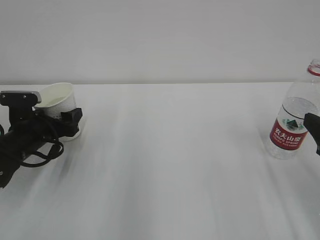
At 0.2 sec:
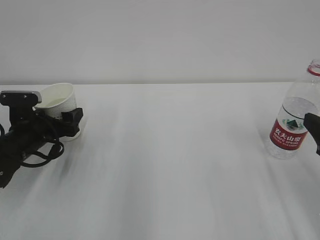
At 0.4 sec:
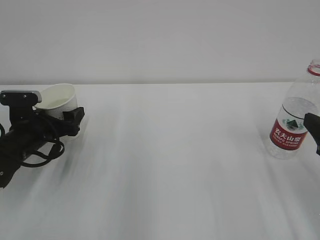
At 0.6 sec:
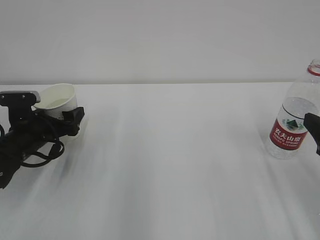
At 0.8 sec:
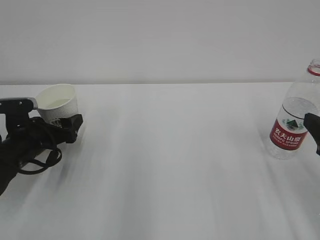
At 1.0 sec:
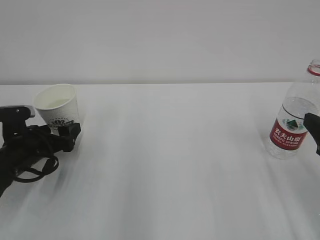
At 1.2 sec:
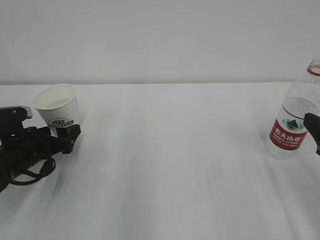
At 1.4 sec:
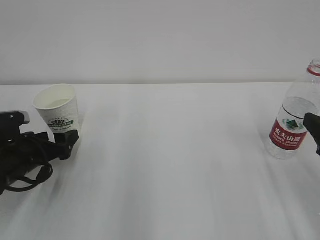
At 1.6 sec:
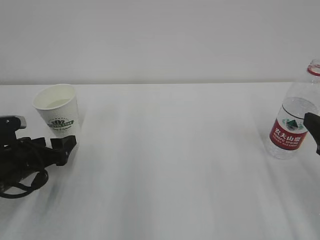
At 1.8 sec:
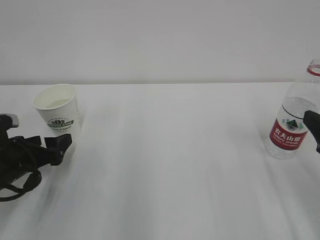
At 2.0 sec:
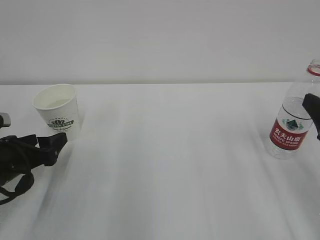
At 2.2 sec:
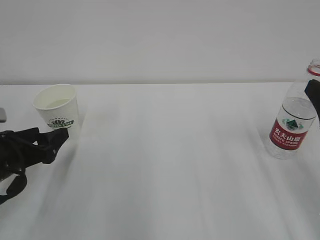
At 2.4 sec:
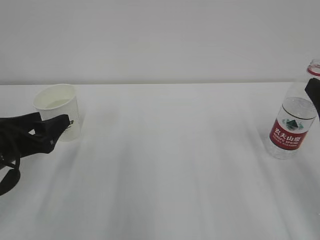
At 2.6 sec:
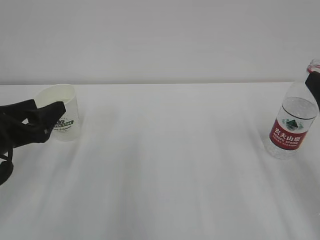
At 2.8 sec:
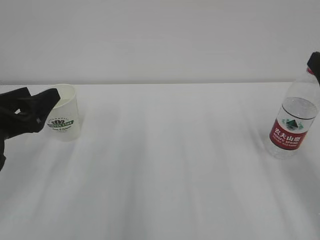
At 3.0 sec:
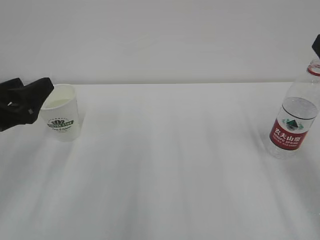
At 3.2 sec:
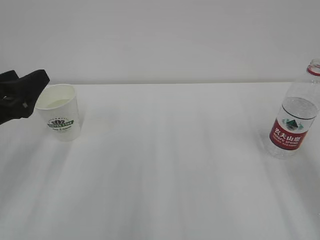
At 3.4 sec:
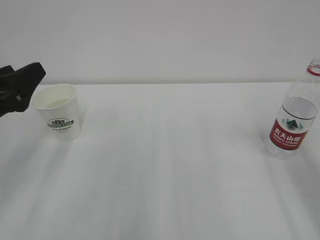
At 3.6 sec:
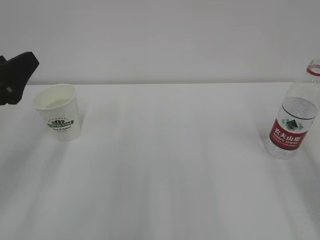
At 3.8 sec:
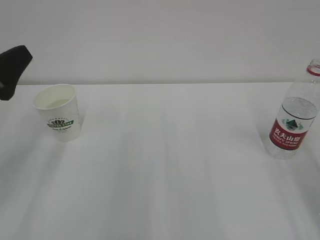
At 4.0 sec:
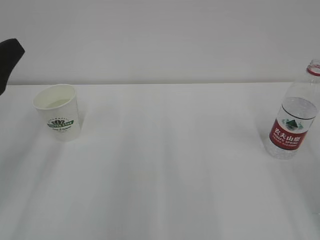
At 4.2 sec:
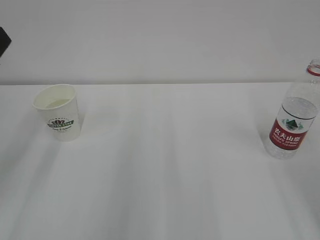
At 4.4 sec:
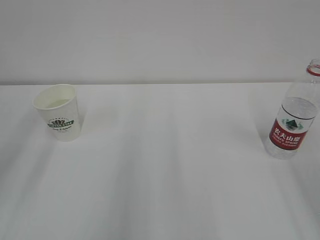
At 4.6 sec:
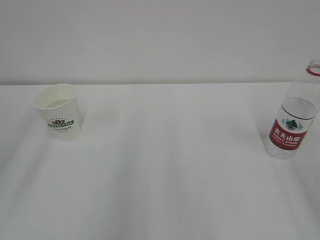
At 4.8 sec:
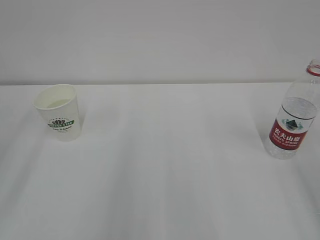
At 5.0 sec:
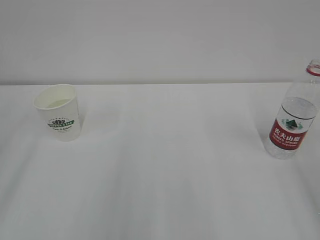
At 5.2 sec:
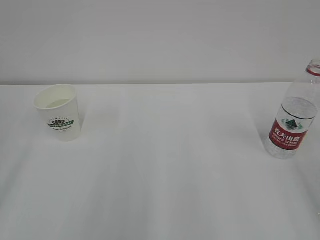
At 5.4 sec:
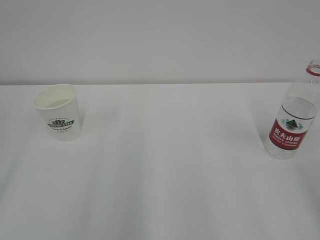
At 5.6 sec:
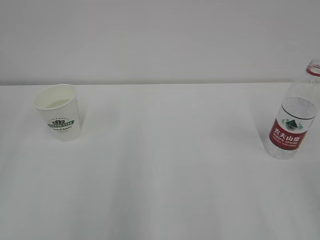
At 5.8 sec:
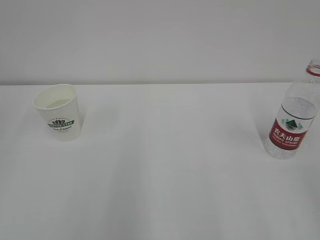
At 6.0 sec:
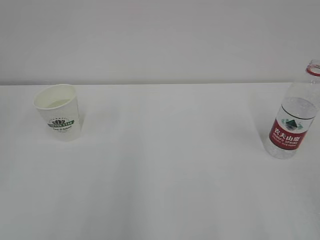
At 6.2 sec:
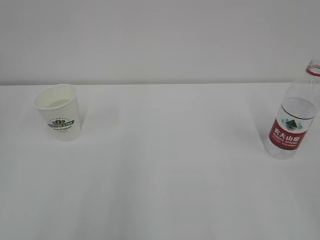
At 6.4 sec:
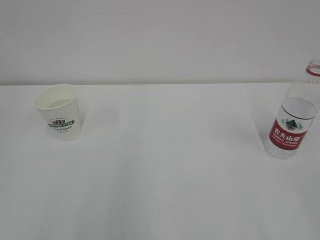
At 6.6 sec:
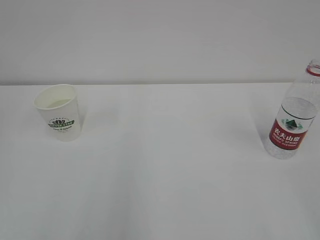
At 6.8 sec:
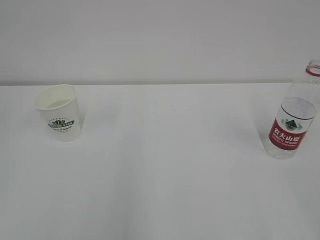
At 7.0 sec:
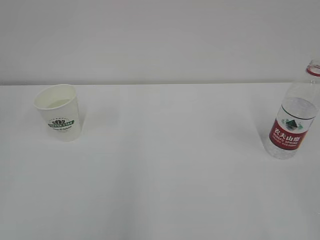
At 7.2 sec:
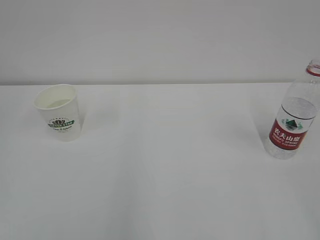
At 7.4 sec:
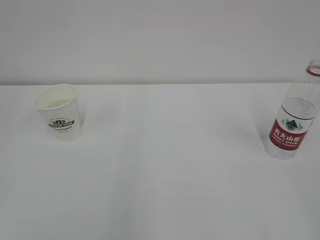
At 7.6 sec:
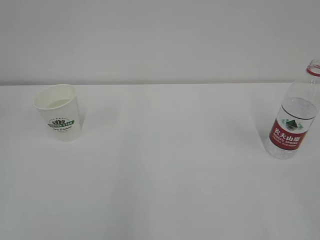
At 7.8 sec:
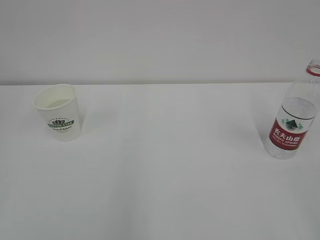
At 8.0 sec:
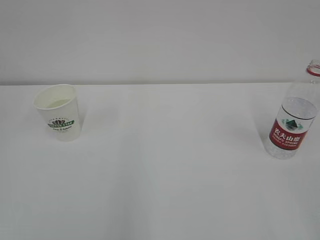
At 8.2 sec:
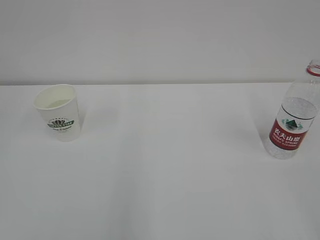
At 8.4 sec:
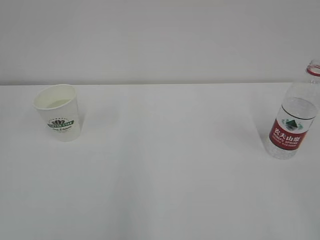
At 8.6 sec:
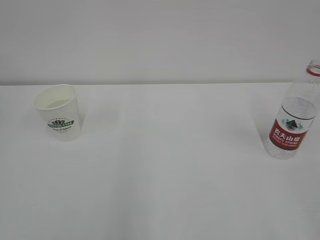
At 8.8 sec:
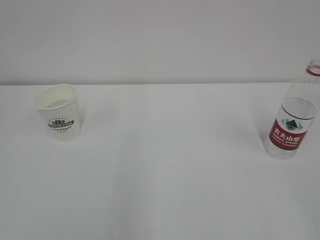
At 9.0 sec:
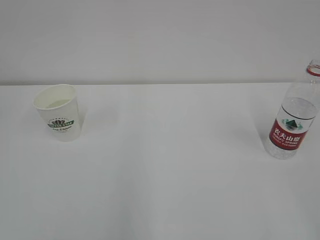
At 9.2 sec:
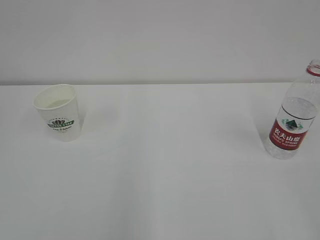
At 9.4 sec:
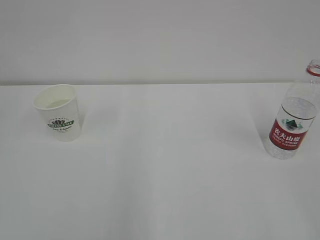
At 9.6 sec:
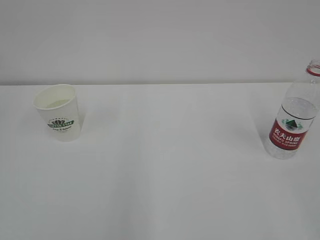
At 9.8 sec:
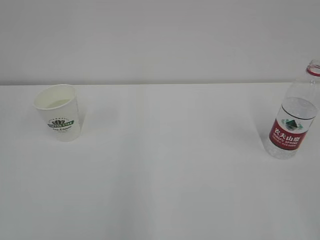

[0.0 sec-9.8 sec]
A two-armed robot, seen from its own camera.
0.0 sec to 1.4 sec: The left gripper ends up some 5 cm from where it was.
1.4 sec to 2.8 sec: The right gripper heads upward, covering roughly 5 cm, while the left gripper heads upward and backward, covering about 15 cm.
2.8 sec to 4.2 sec: The left gripper is displaced upward by approximately 10 cm.
8.4 sec to 9.8 sec: Both grippers stay about where they are.
